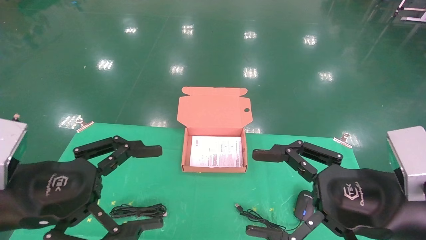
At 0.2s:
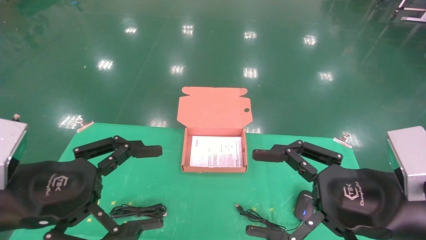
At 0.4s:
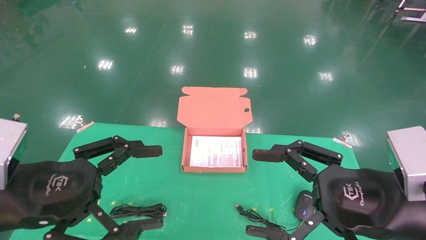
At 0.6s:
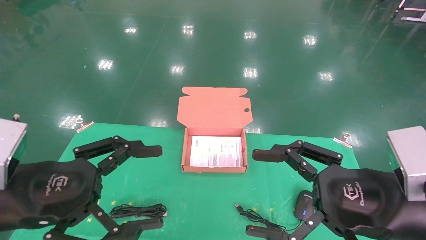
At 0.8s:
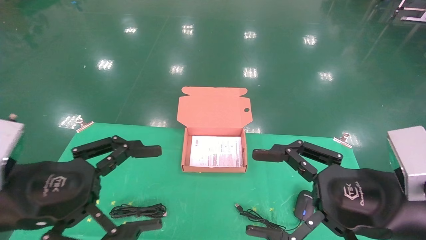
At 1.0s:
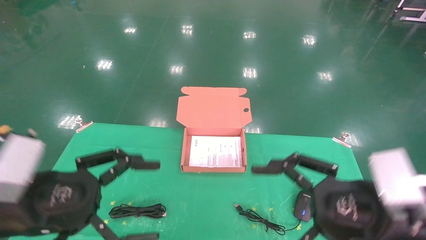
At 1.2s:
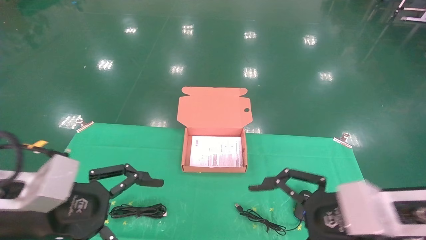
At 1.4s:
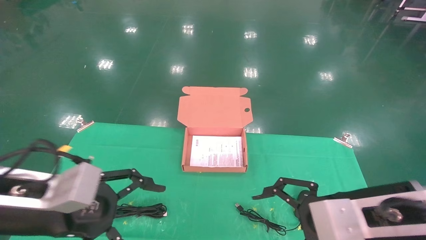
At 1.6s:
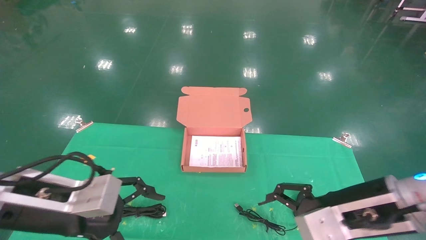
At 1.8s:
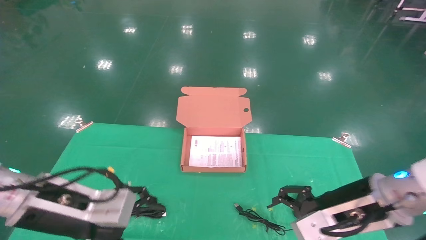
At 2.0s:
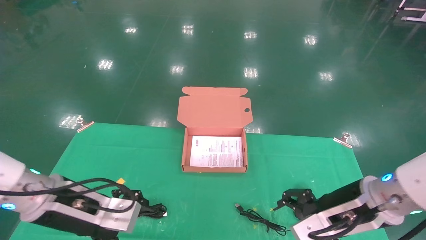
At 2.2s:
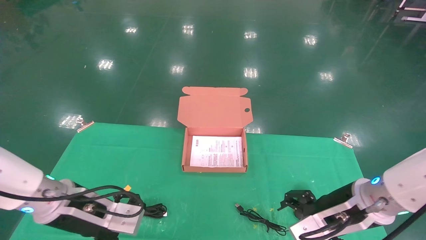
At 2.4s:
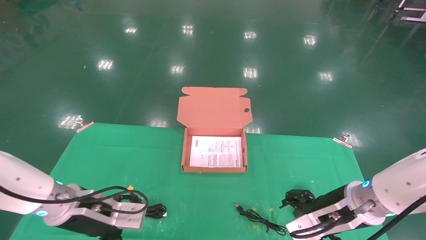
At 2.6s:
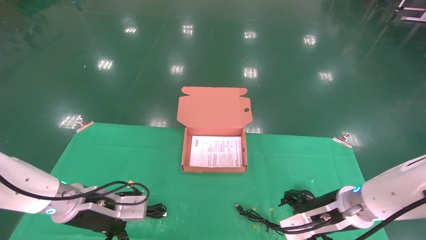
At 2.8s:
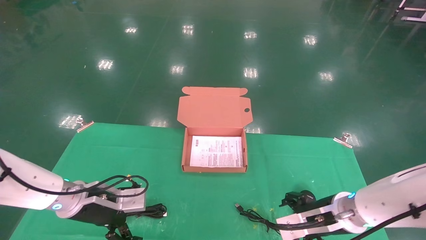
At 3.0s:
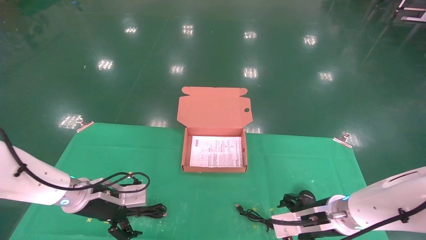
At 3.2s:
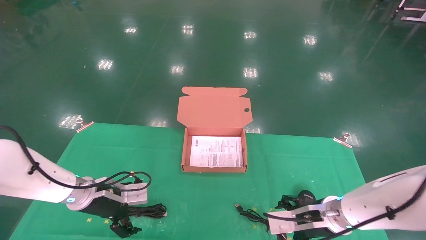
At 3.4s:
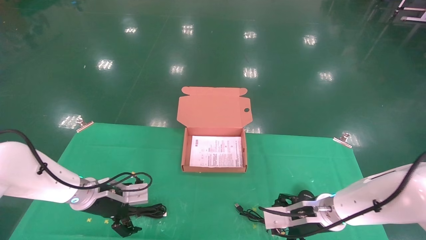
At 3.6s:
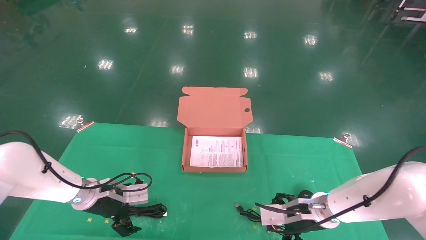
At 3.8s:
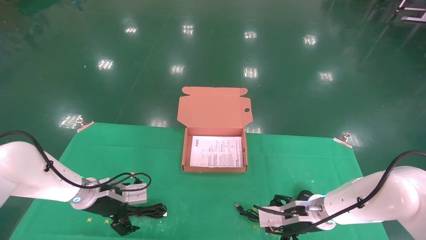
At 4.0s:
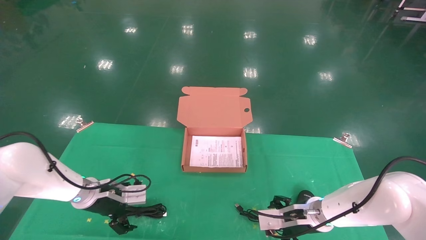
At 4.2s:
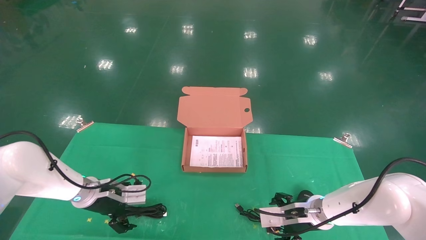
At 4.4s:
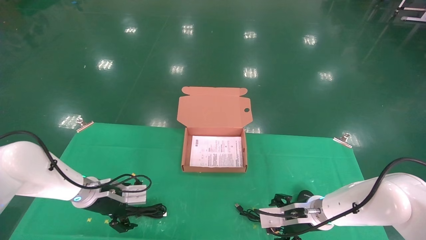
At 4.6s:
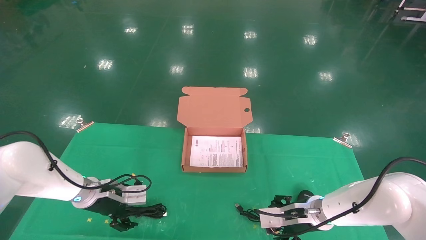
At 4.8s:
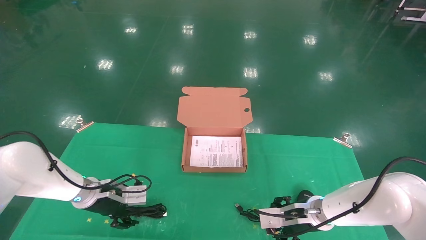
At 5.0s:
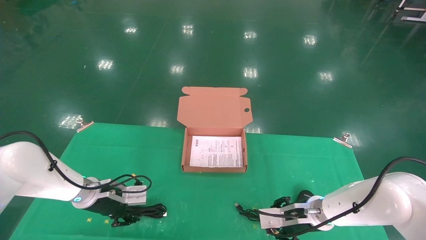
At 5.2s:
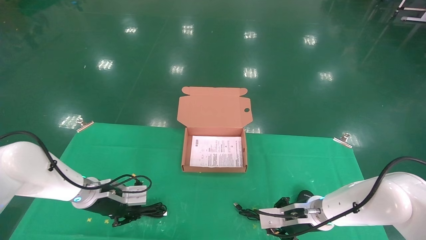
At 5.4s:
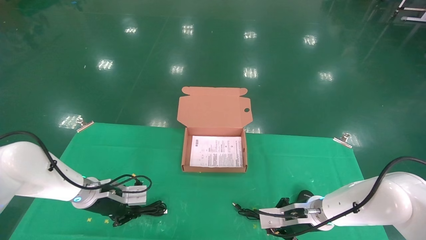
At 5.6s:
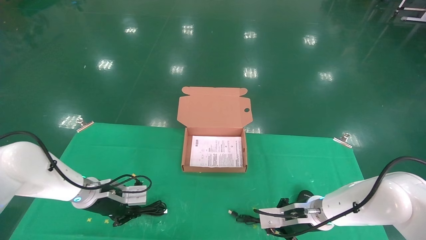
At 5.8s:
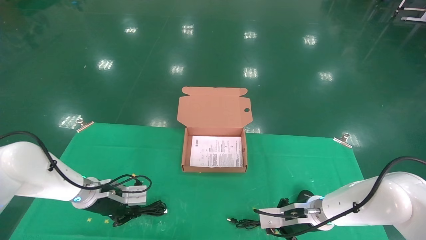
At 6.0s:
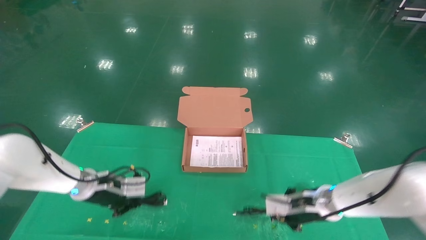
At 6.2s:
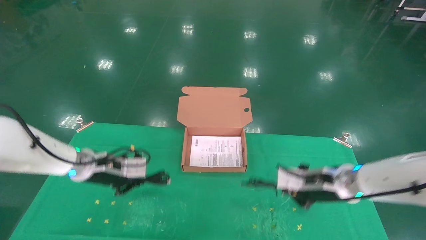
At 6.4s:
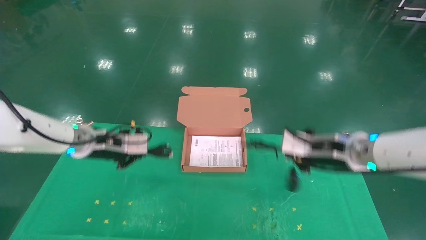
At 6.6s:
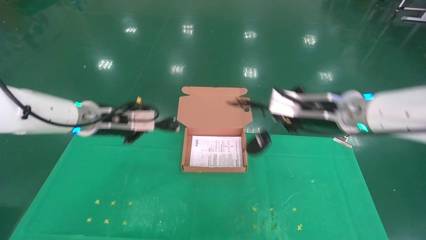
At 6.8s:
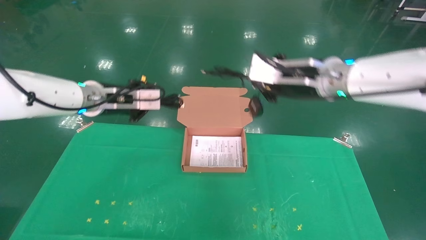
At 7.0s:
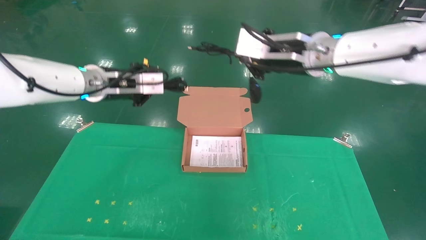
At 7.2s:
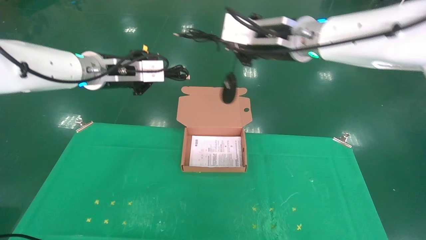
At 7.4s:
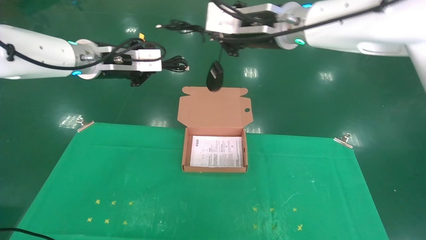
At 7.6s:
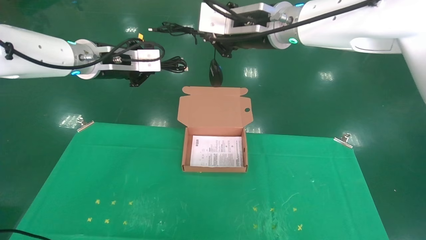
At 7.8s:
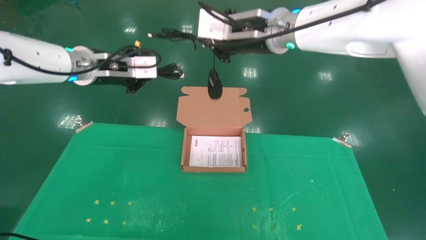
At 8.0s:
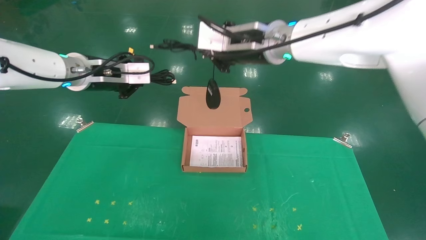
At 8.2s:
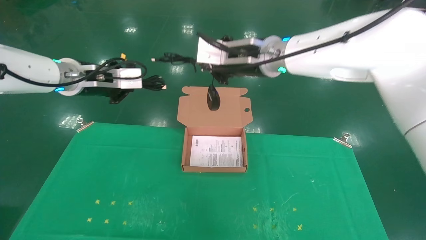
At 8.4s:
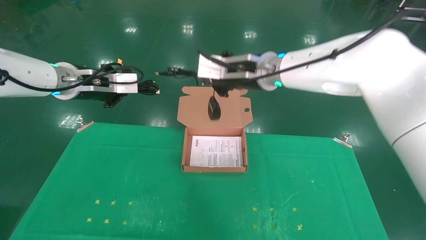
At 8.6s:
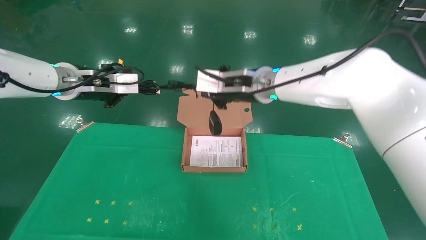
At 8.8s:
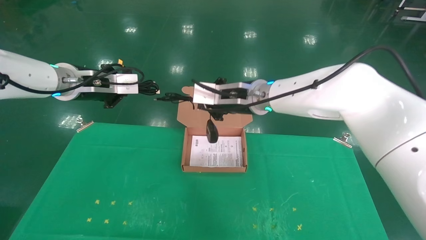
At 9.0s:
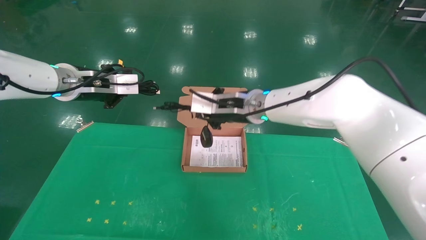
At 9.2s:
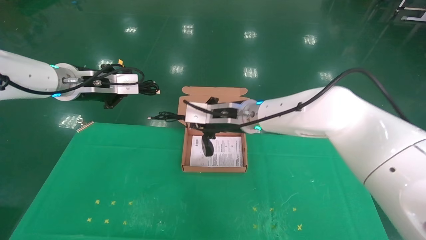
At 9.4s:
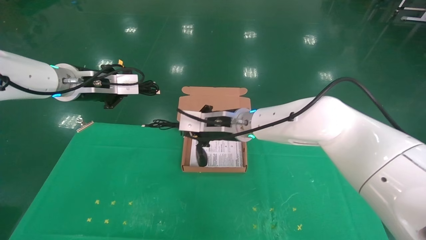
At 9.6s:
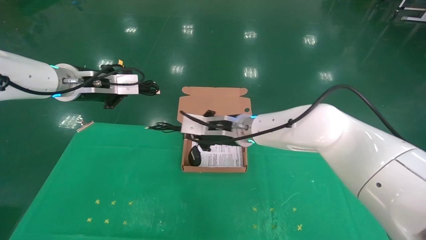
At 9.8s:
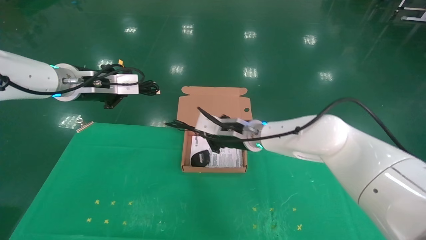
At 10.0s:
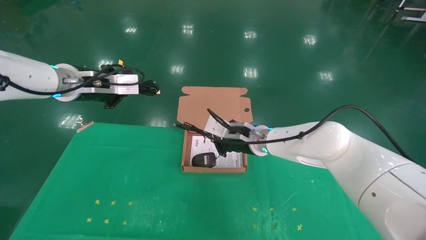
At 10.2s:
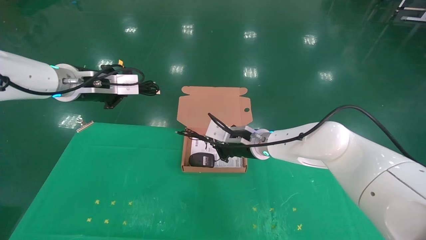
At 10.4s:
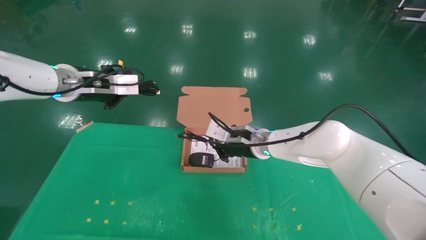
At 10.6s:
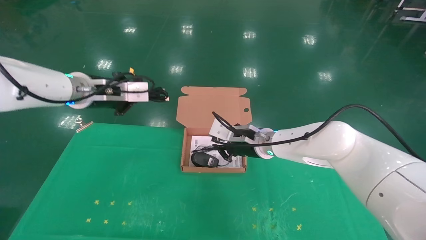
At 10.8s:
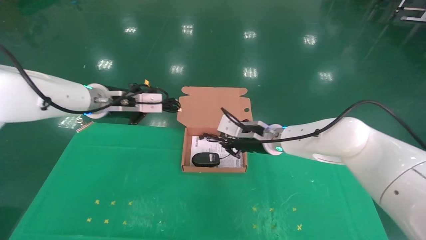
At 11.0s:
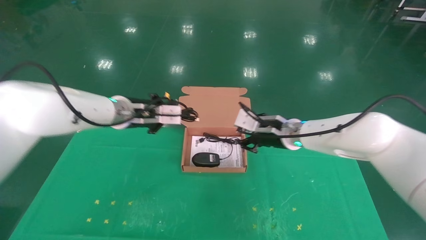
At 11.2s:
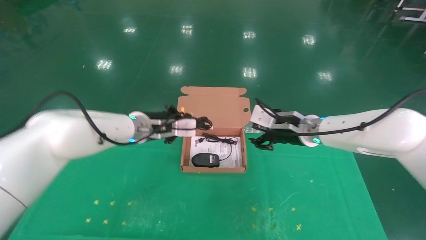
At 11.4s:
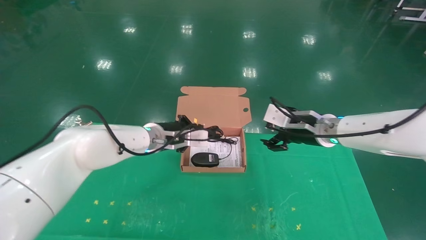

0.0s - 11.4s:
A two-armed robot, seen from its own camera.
Task of the whole recording: grasp data cable left put into box grasp mouse right put into box.
Step, 1.0s - 6.0s: Grab and pick up both the mouse and power cord from the accessory packaging area at the same time.
1.4s - 2.8s: The grippers both shift forward and downward by roughly 15 cm.
2.8s - 4.2s: The left gripper is displaced forward by approximately 5 cm. The right gripper moves forward and downward, roughly 5 cm.
4.2s - 5.6s: The right gripper closes its fingers. The left gripper closes up.
5.6s - 7.2s: Both grippers move upward, roughly 35 cm.
7.2s - 8.6s: The left gripper heads to the left, covering some 5 cm. Meanwhile the right gripper moves downward and to the left, approximately 10 cm.
8.6s - 10.0s: The right gripper is displaced downward by approximately 15 cm.
10.0s - 11.4s: The left gripper heads downward and to the right, covering roughly 20 cm, while the right gripper is displaced to the right by some 15 cm, and opens up.

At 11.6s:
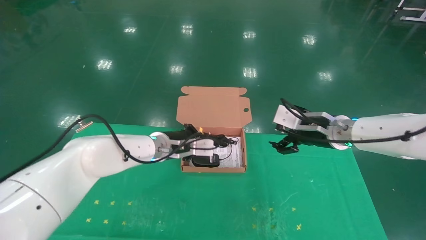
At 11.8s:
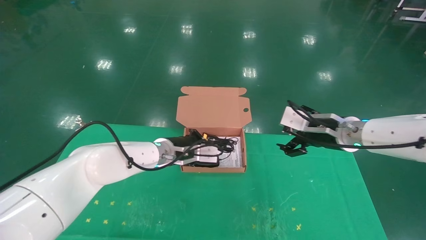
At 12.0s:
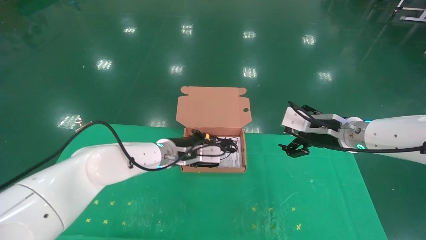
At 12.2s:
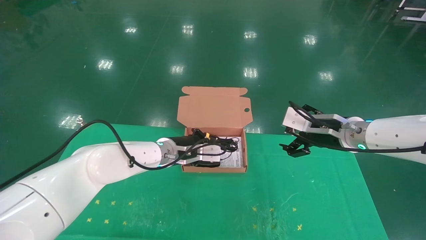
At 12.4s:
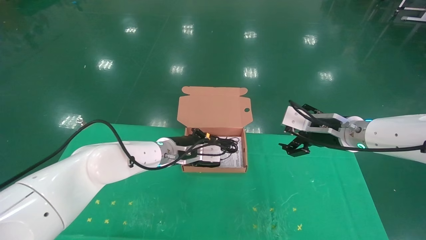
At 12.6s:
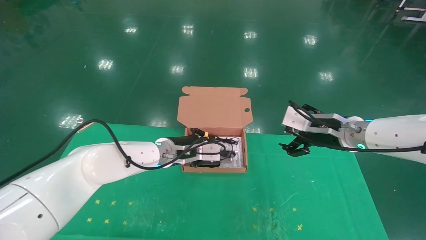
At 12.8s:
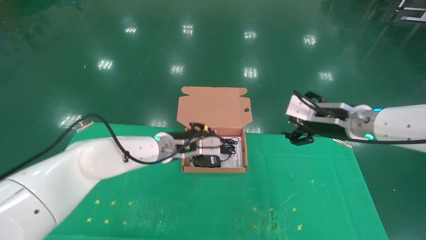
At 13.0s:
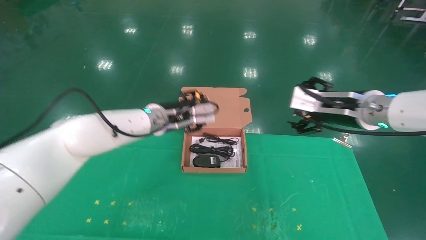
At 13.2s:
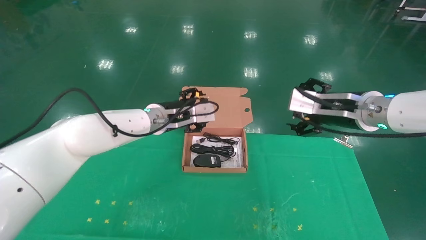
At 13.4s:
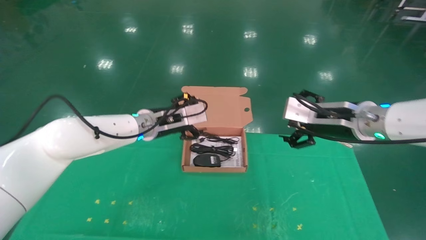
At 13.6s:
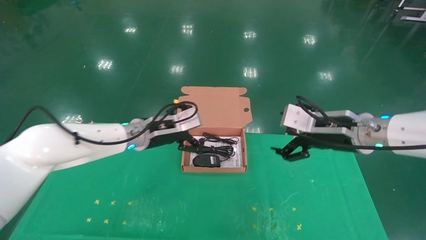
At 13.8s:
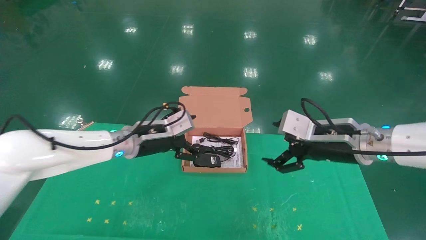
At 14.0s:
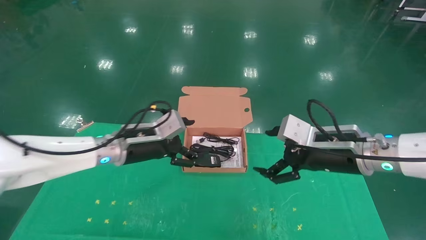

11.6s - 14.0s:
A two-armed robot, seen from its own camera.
Task of the whole recording: grasp data cable left put into box grasp mouse right put into box.
11.6s - 12.8s: The grippers stay close to where they were, moving slightly.
12.8s - 14.0s: The right gripper goes approximately 5 cm backward, while the left gripper travels to the left and backward by roughly 10 cm, and opens up.

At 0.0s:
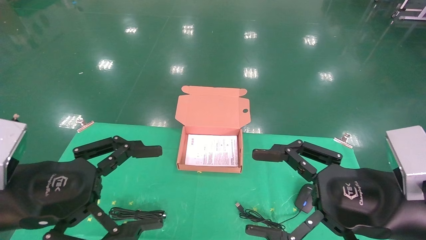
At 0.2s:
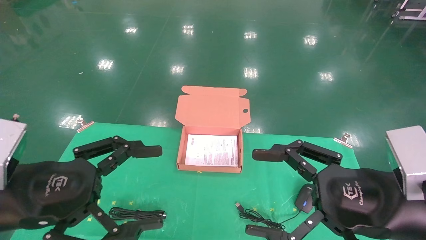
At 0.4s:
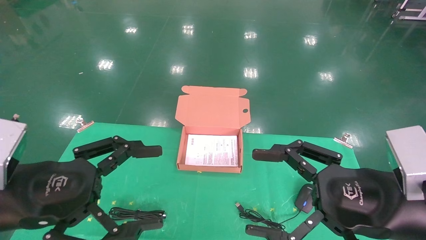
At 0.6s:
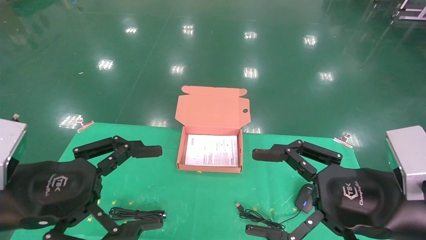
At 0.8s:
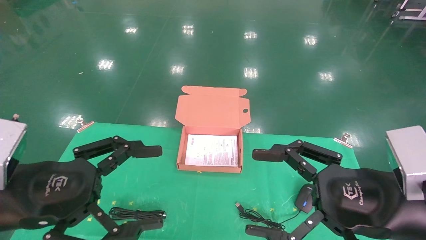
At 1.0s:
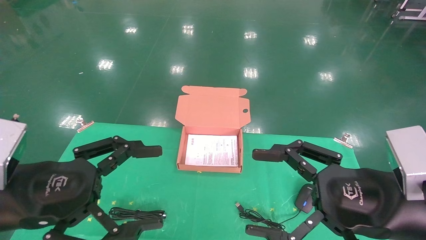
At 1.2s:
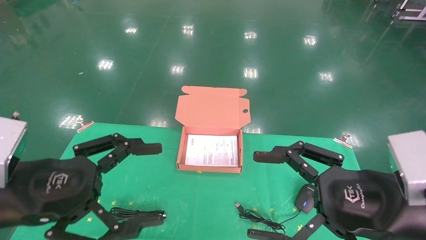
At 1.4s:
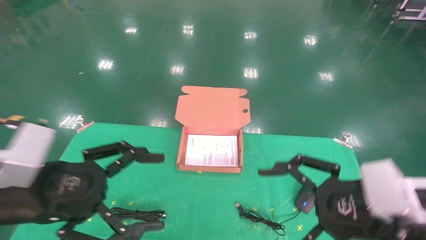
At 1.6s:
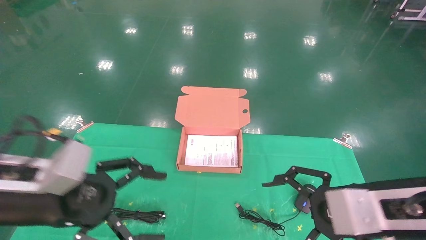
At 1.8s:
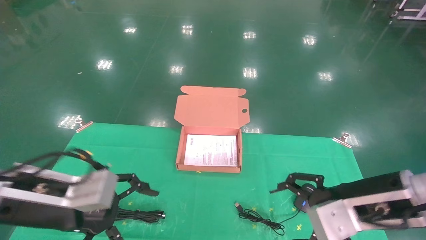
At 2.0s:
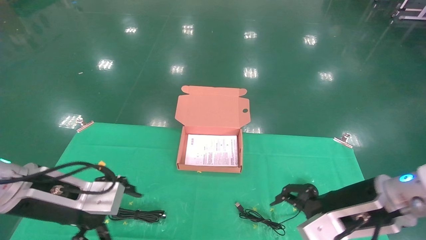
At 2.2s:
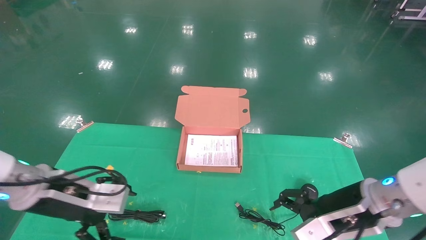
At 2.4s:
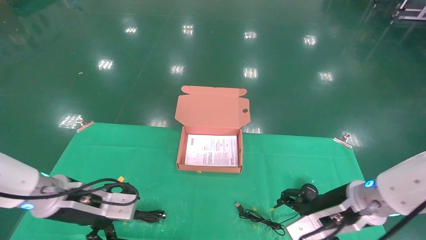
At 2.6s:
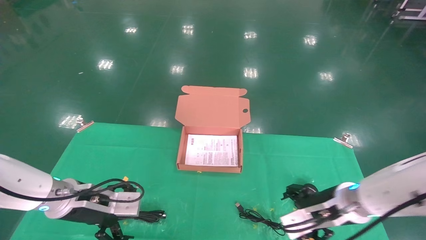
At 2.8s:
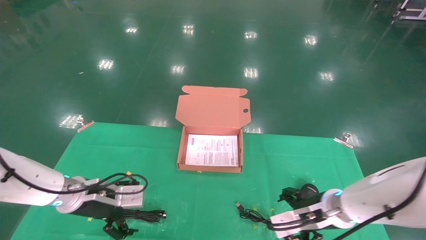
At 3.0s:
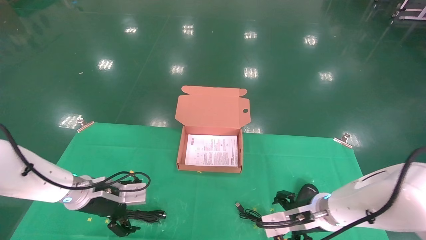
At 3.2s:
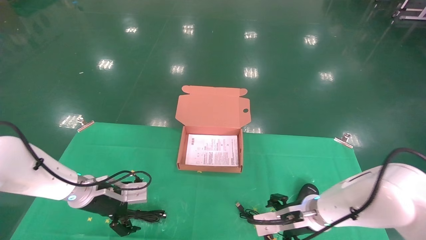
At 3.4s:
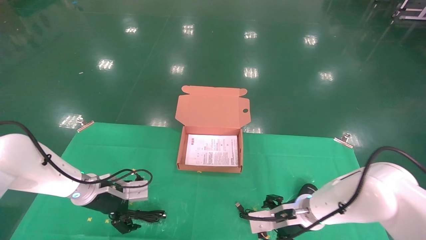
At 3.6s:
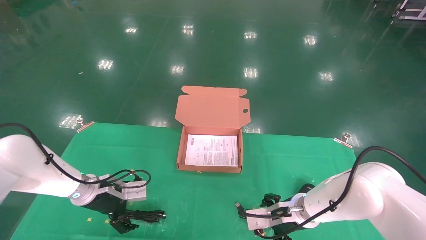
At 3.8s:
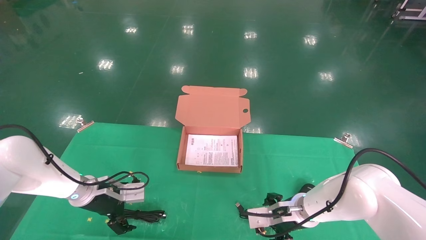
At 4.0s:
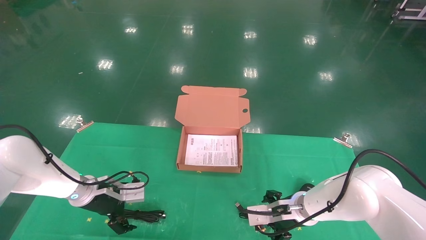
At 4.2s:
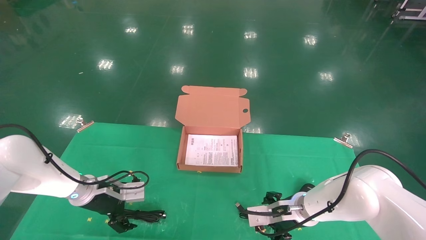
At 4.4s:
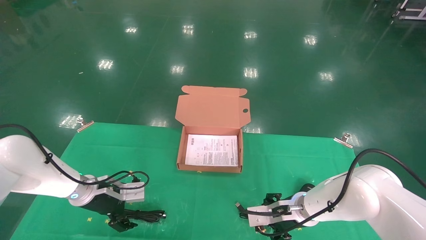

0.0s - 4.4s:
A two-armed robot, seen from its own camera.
Task of the whole recording: grasp data cable left put into box grasp mouse right put into box.
1.4s - 3.0s: Both grippers travel together forward and downward, approximately 20 cm.
3.0s - 4.4s: The right gripper ends up about 5 cm from where it was.
